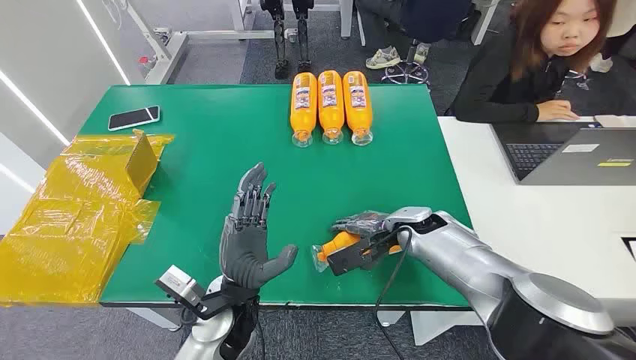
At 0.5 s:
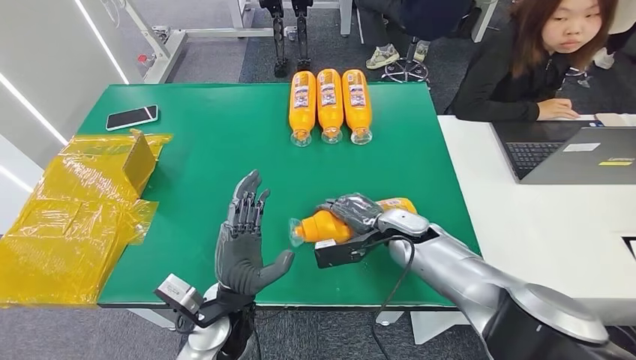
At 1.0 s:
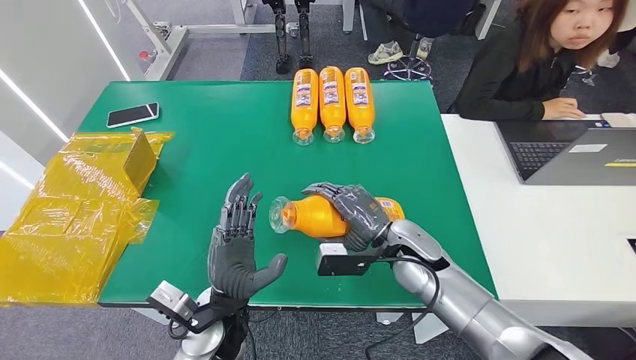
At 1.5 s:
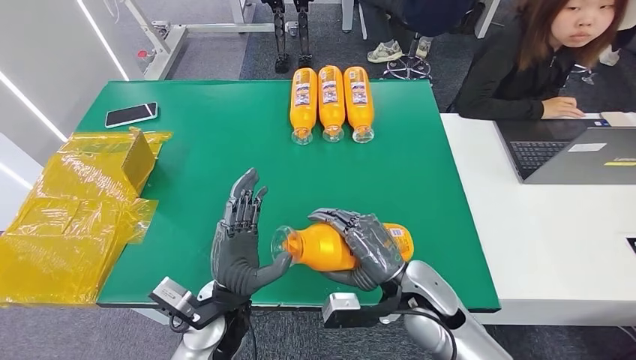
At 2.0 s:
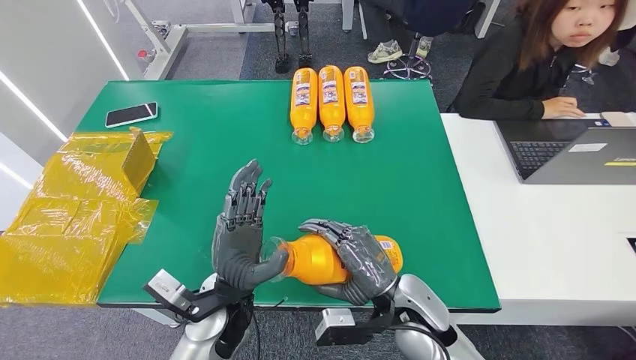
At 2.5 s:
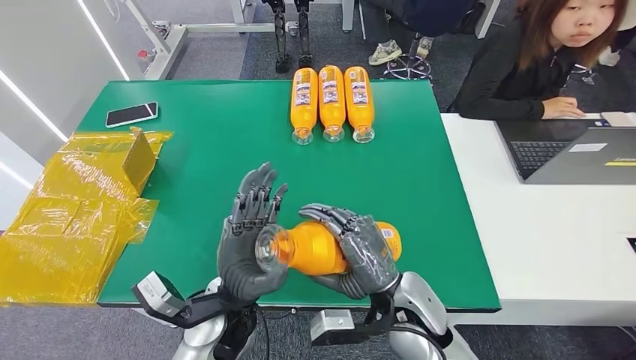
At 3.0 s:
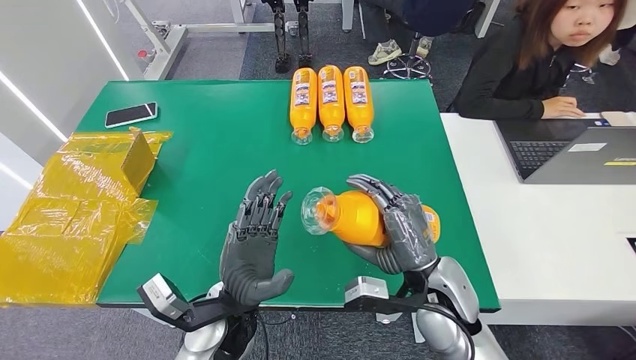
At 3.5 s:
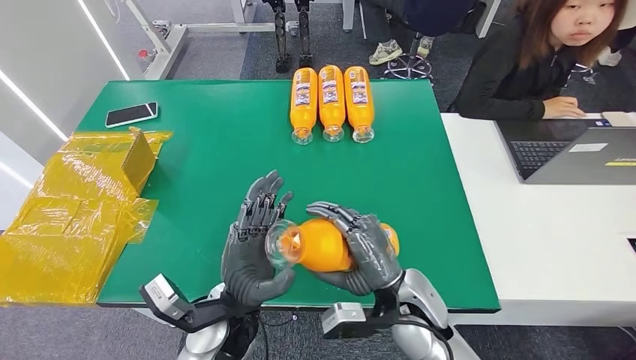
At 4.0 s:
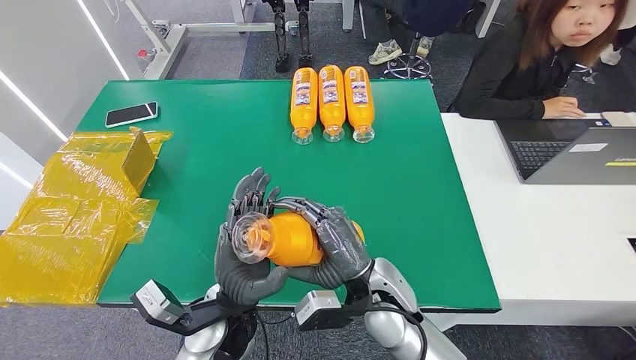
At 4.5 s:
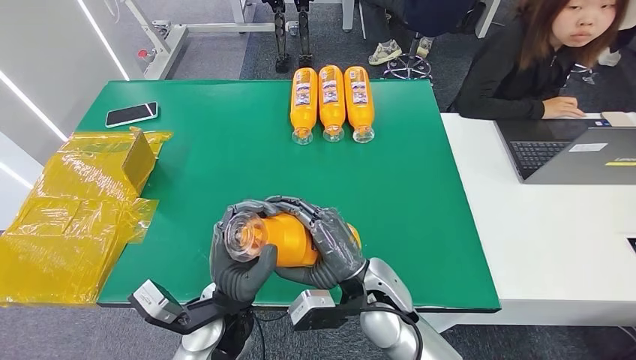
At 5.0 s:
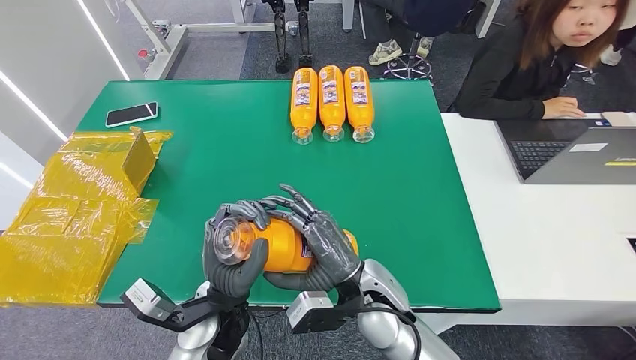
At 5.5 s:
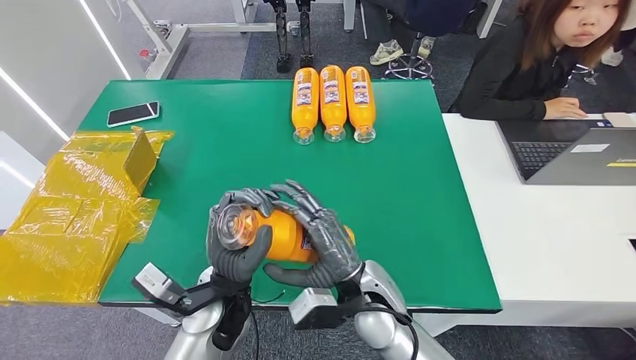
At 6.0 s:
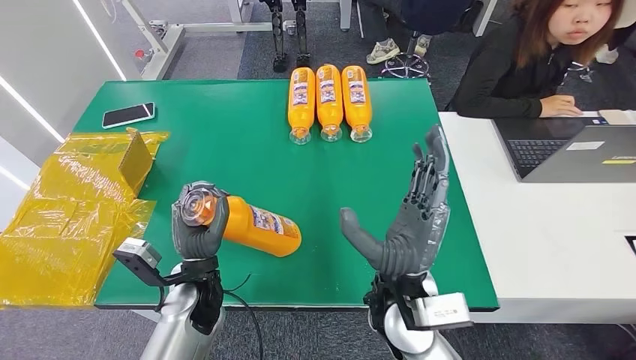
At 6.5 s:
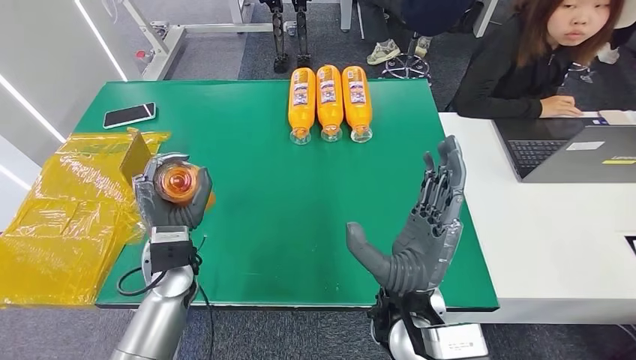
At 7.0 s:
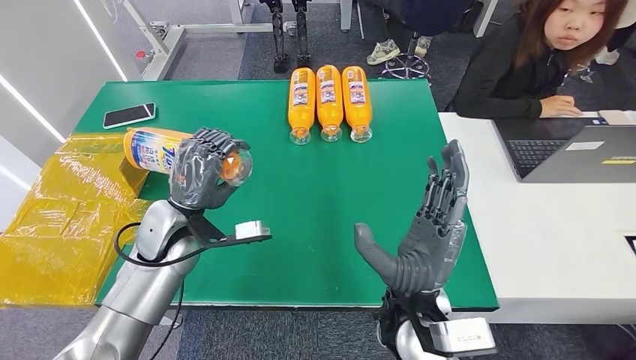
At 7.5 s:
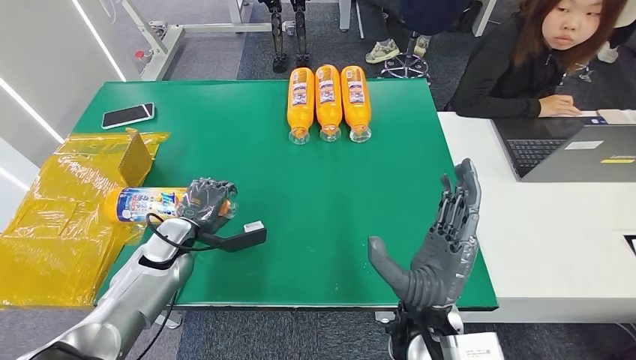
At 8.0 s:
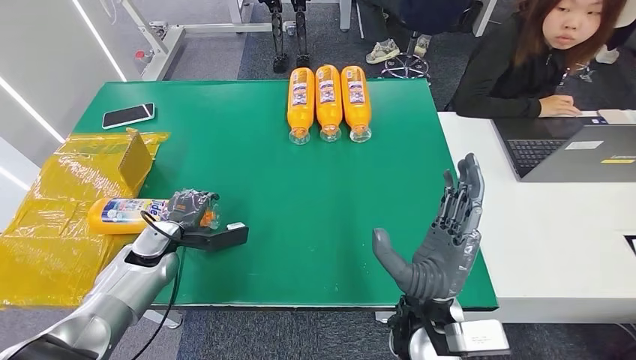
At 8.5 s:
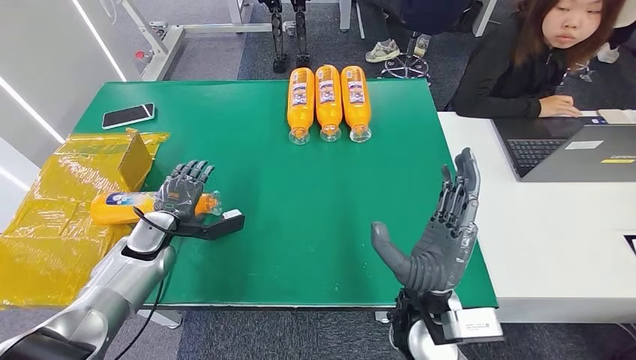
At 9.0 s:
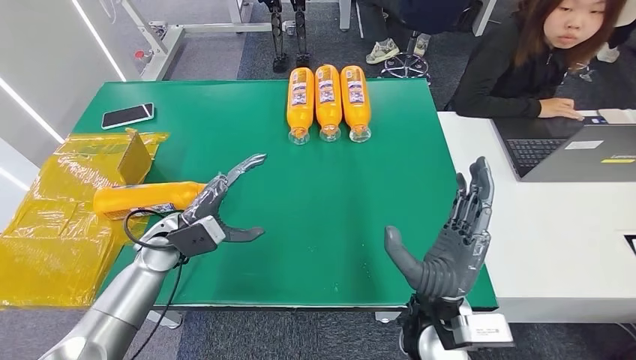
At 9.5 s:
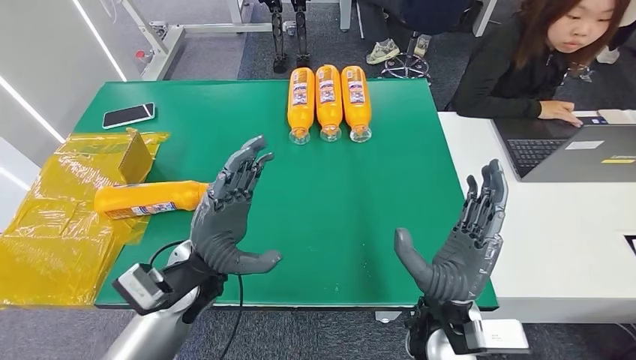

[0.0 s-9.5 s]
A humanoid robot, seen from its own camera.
Step, 0.0 to 3.0 s: Pick up the bottle from the table.
Step, 3.5 to 9.5 s: Turn the bottle to the front side.
2.0 to 4.0 s: The right hand heads to the left, covering about 5 cm.
4.0 to 5.5 s: The hands stay close to where they were, moving slightly.
7.5 to 9.5 s: The left hand moves to the right and upward, roughly 15 cm.

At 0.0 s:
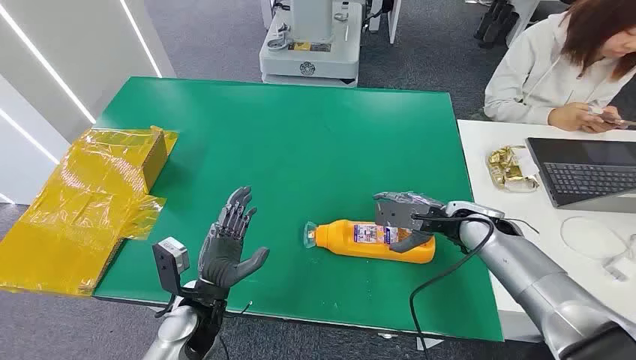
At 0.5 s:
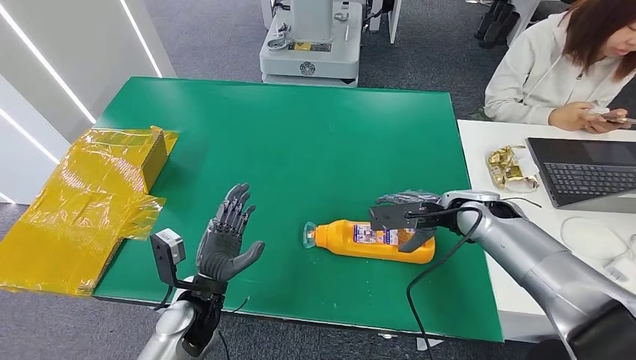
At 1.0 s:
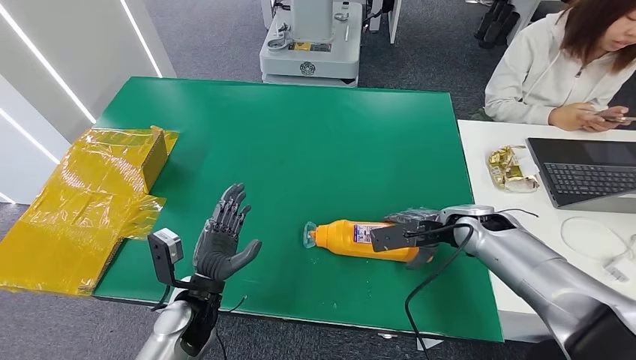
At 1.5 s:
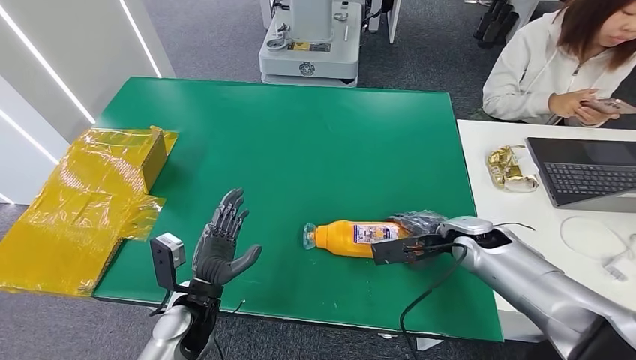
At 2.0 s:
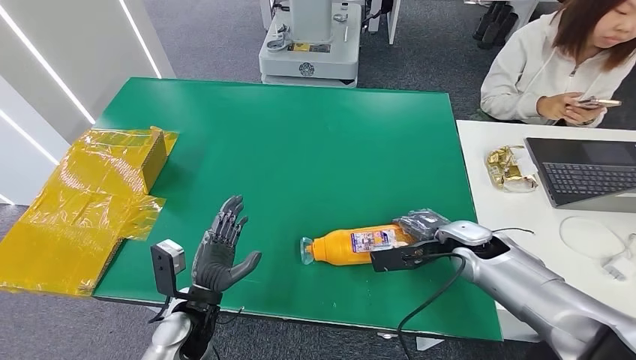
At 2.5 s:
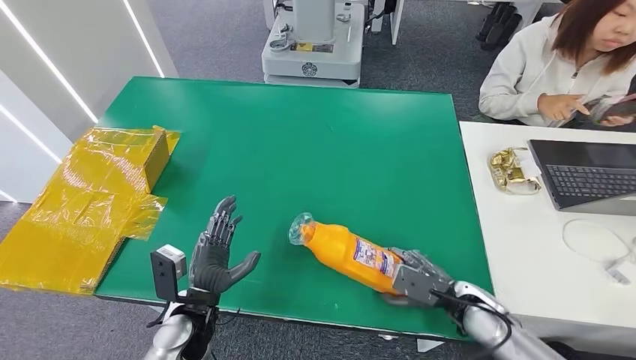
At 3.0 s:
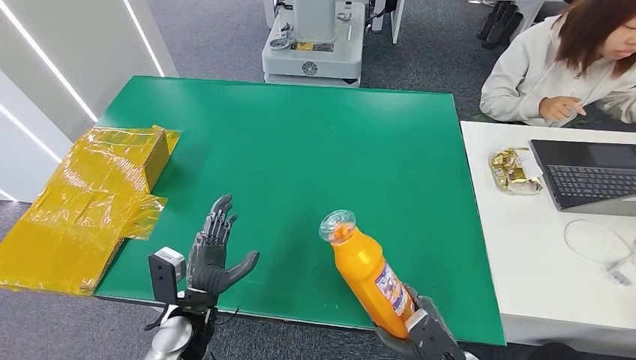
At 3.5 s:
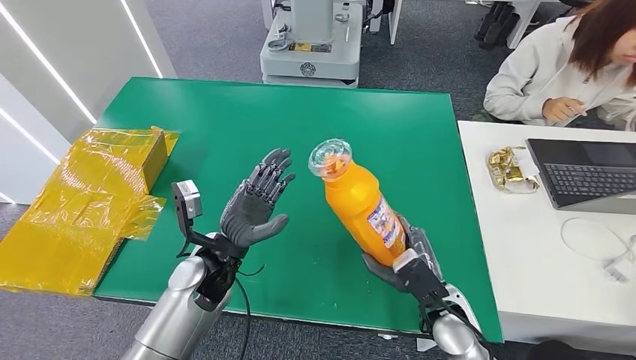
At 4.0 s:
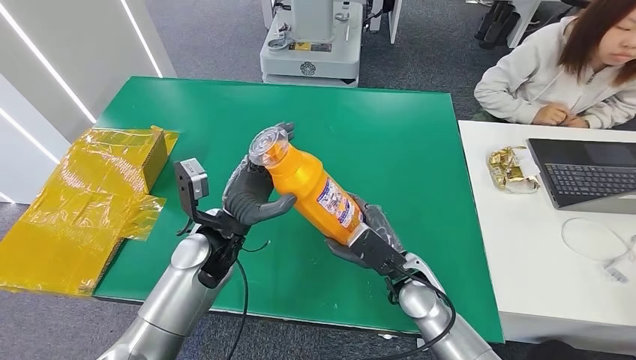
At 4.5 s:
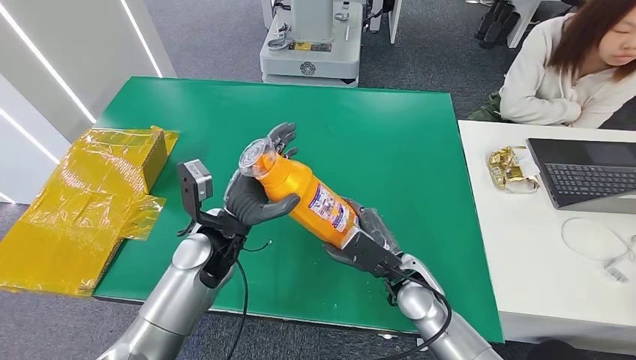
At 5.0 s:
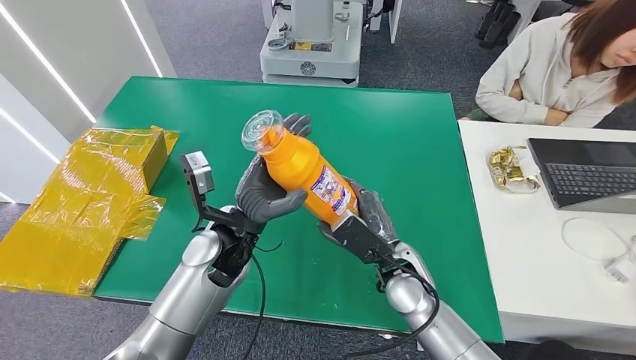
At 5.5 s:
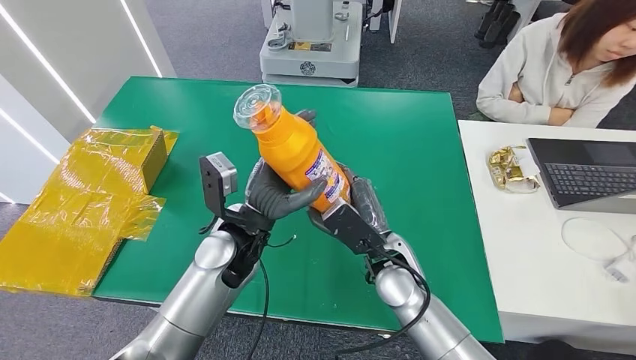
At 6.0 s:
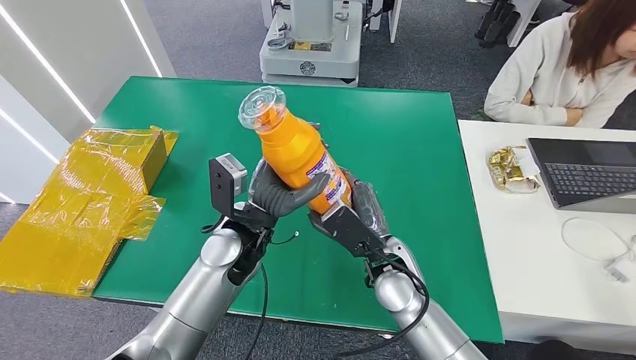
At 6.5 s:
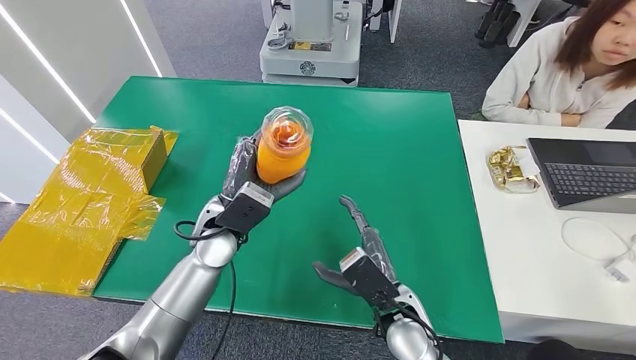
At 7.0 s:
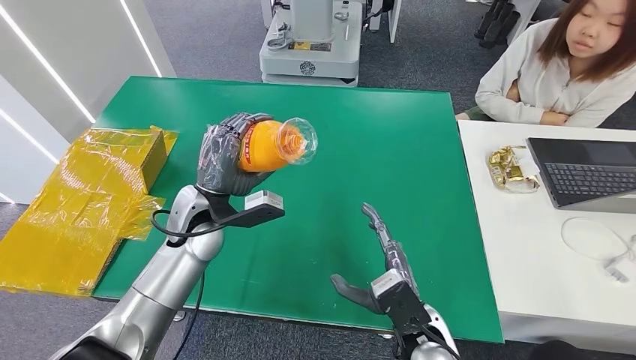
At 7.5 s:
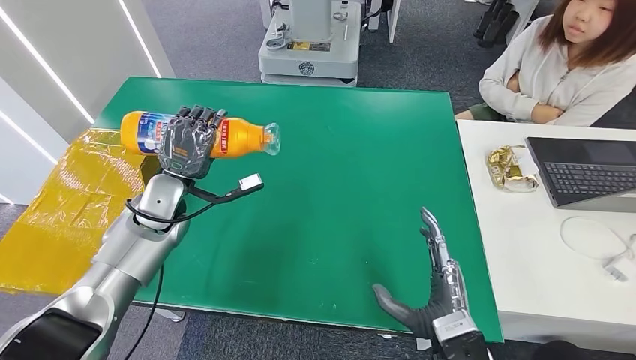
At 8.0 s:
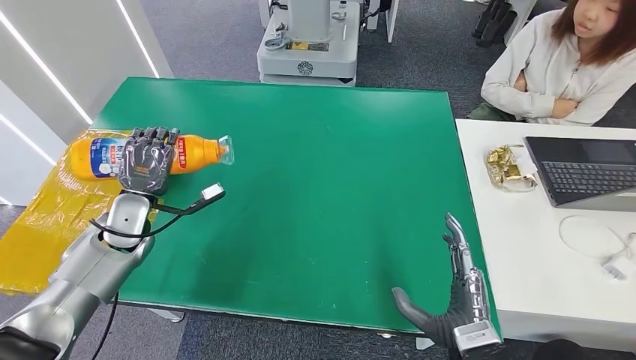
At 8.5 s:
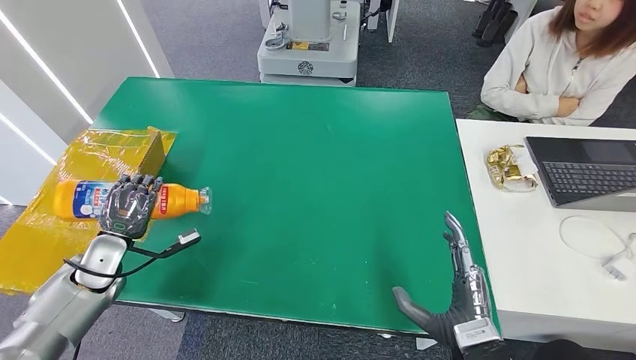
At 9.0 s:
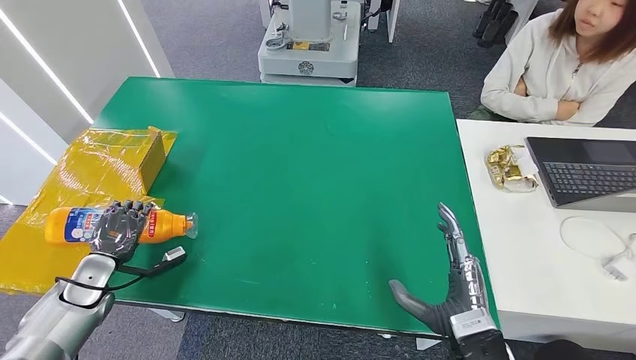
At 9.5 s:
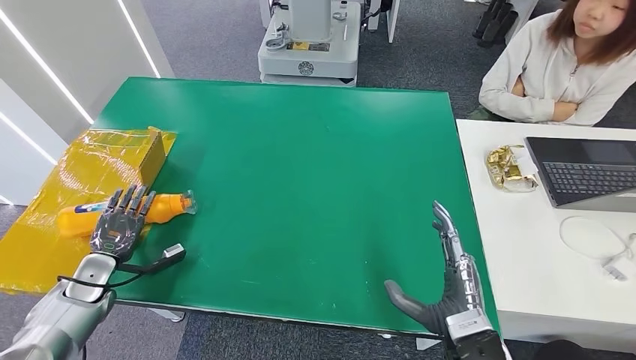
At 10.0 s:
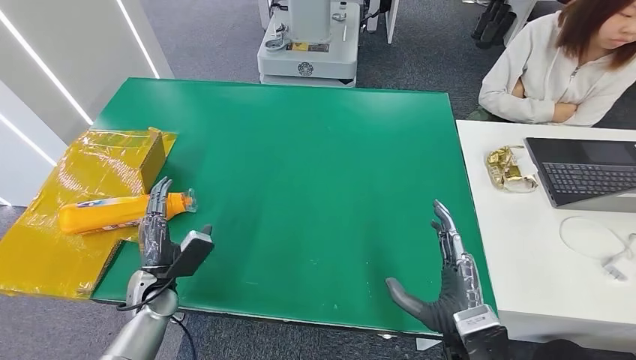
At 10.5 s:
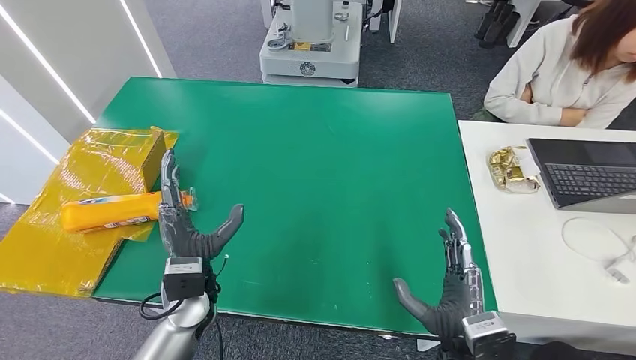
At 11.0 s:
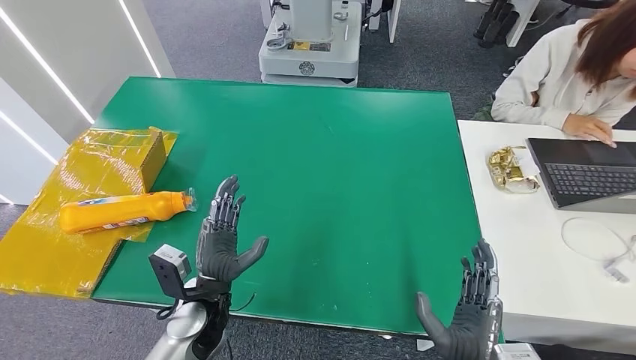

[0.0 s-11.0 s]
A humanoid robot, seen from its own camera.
Step, 0.0 to 4.0 s: Pick up the bottle from the table.
Step, 4.5 to 11.0 s: Turn the bottle to the front side.
3.5 to 5.5 s: The right hand travels to the left, upward and forward by roughly 15 cm, while the left hand shifts approximately 10 cm upward and to the right.
7.5 to 9.0 s: The left hand goes roughly 25 cm to the left, downward and backward.
9.0 to 11.0 s: The left hand travels to the right by about 25 cm. The right hand changes place by some 5 cm.
